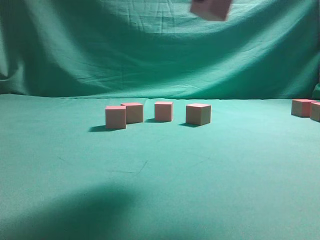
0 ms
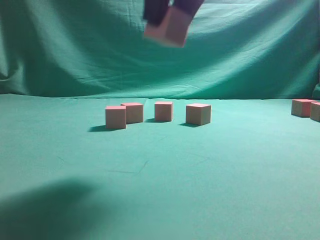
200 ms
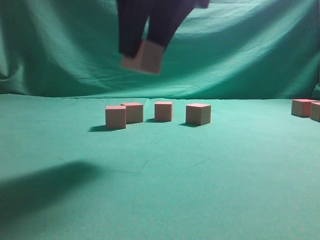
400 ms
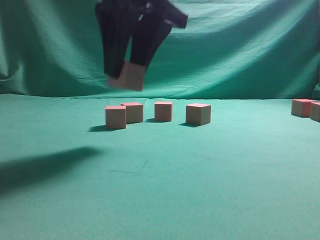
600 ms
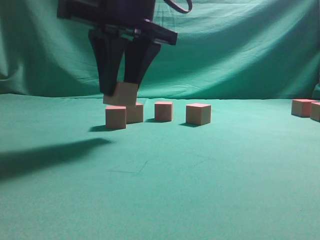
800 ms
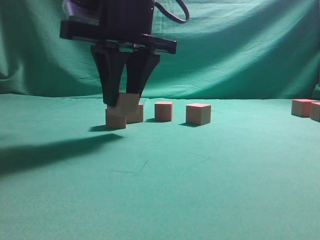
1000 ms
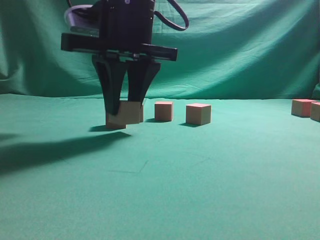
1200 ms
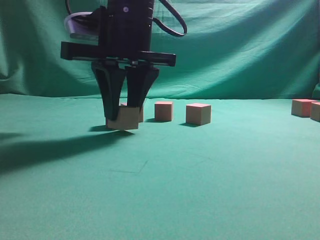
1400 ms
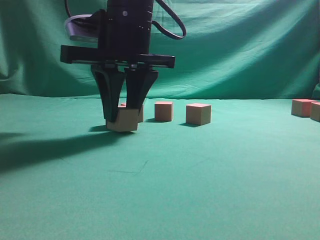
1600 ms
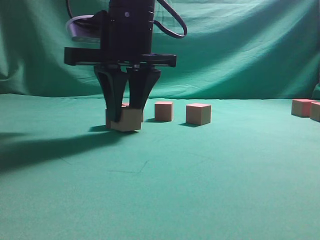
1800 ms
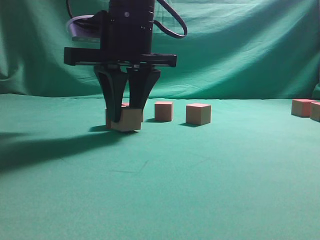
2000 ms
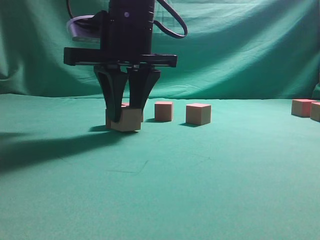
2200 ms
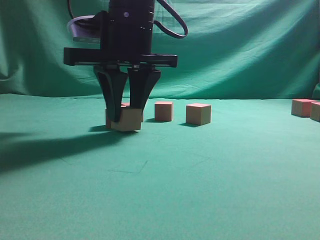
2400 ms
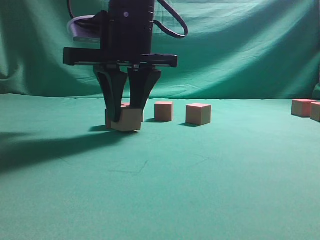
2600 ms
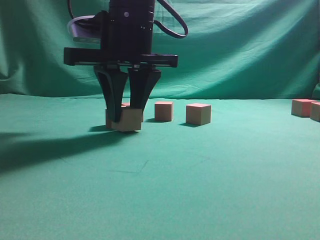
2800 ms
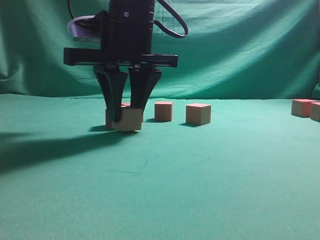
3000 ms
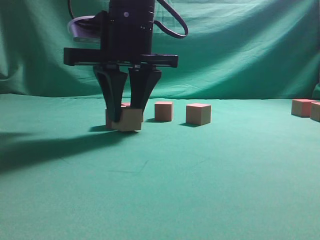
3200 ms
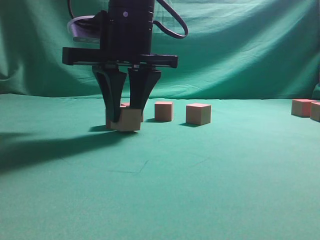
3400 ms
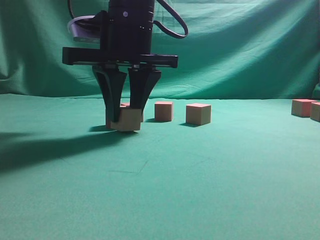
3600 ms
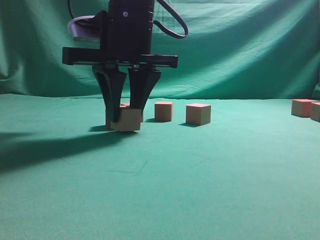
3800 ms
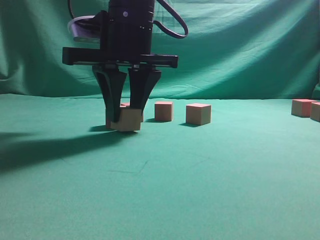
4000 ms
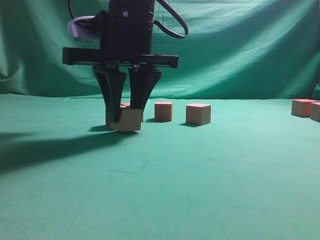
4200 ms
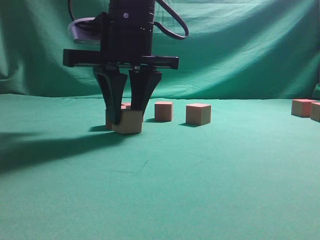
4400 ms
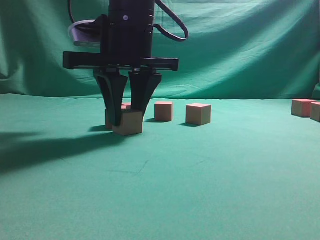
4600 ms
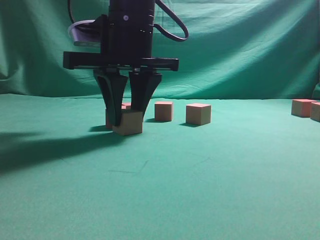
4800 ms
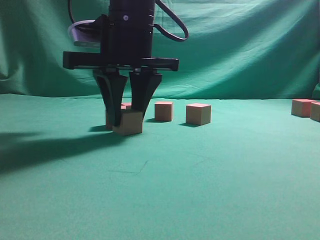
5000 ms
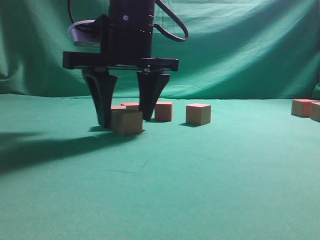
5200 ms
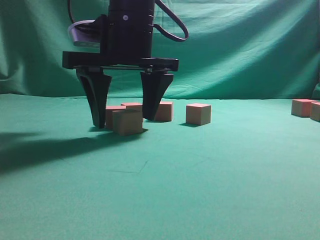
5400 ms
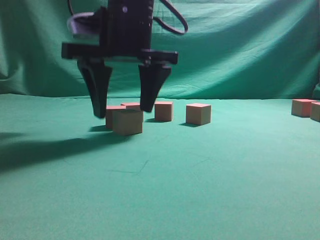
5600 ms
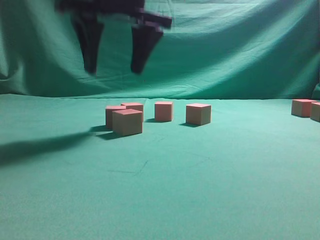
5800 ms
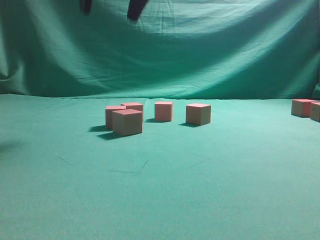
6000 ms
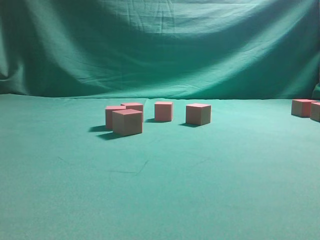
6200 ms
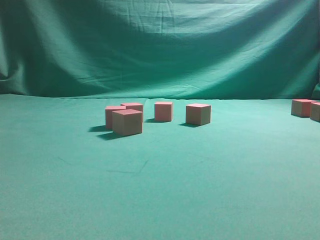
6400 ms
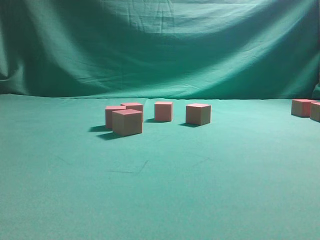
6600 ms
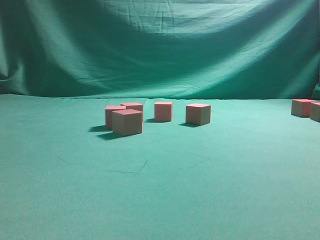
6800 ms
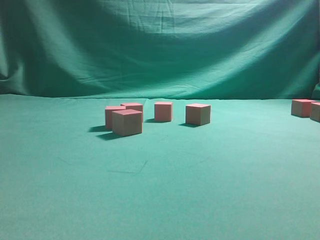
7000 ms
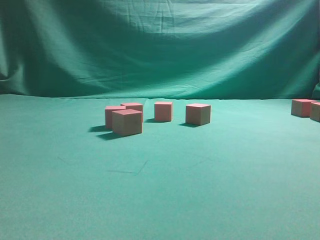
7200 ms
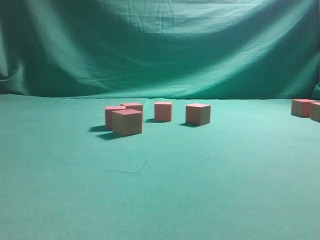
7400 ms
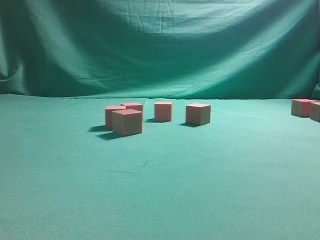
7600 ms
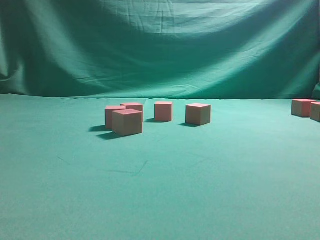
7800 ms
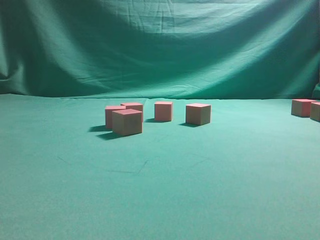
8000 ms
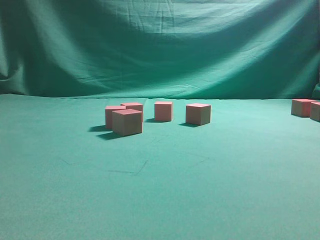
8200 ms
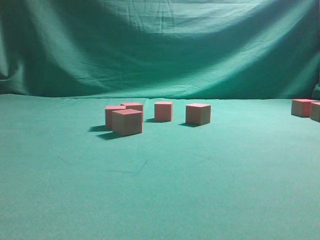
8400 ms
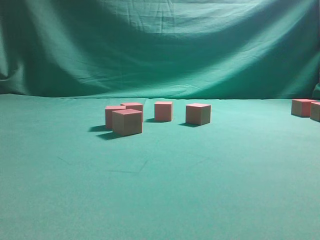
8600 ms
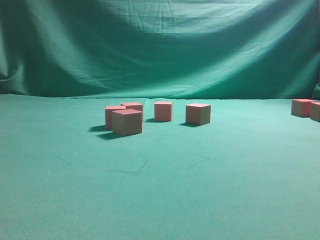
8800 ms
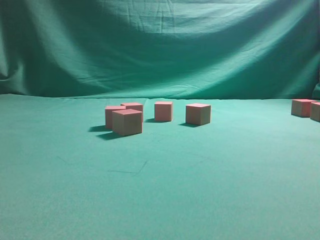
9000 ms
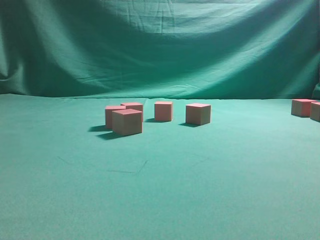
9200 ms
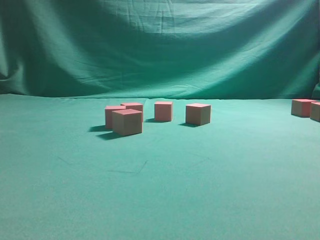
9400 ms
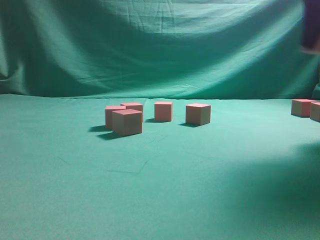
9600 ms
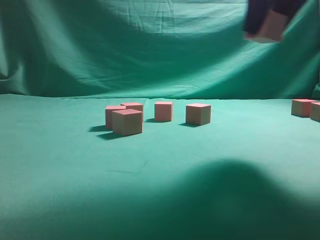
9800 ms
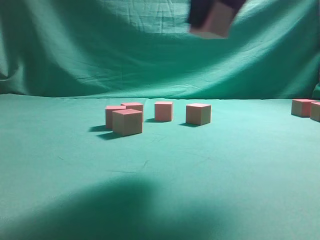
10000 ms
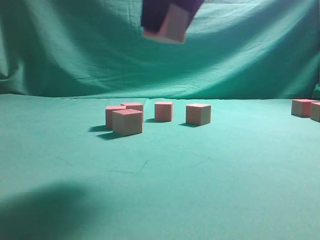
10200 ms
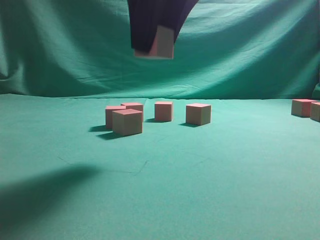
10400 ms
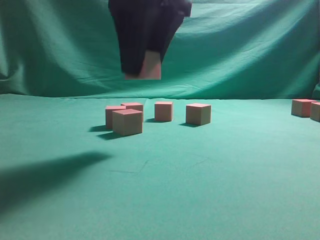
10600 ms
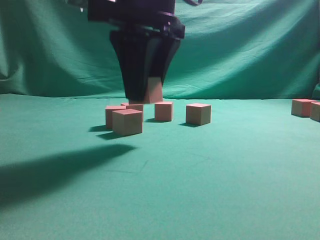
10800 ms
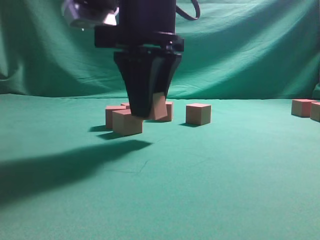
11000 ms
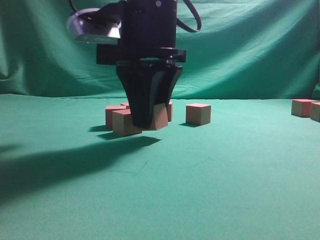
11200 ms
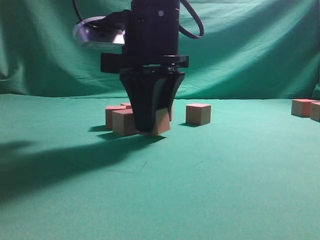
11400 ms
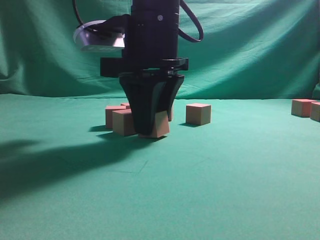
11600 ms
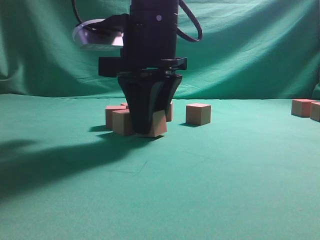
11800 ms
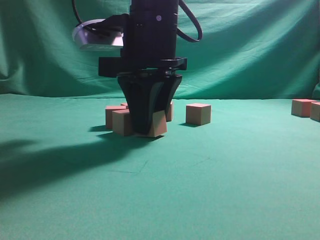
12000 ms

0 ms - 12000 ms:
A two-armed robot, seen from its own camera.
Task of the whole recording: pick up the multiple cubes in two columns one by one and place them in another position on the table.
Step, 0 ms - 5600 ms: Place the block at the correct position to assemble the letter S.
Step, 5800 ms - 8800 ms: Pick up the block on the table.
0 ms - 1600 ms: The right gripper is displaced to the left, downward and forward by roughly 20 cm.
1600 ms - 4400 ms: The two grippers keep their place.
4400 ms - 6000 ms: The right gripper heads upward, covering some 15 cm, and opens up.
9000 ms - 10400 ms: The right gripper moves to the left, some 35 cm.
10400 ms - 12000 ms: The right gripper shifts about 10 cm downward and forward.

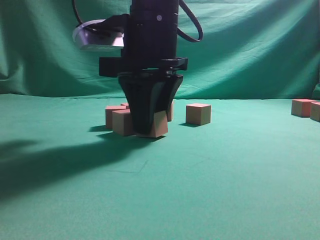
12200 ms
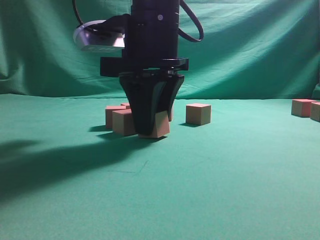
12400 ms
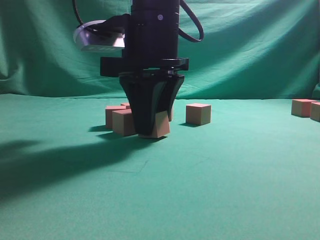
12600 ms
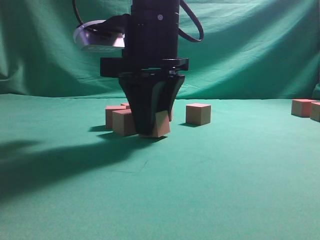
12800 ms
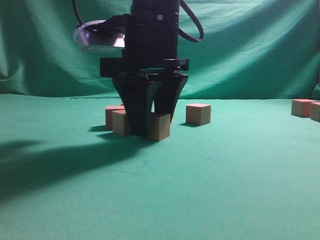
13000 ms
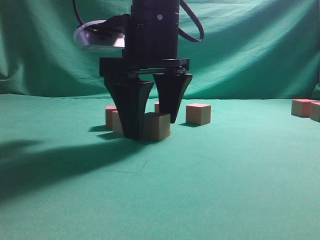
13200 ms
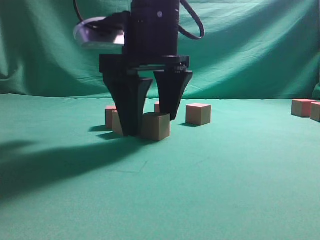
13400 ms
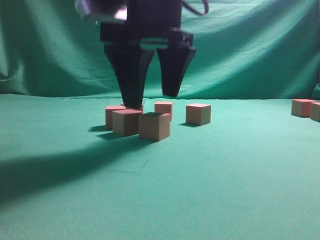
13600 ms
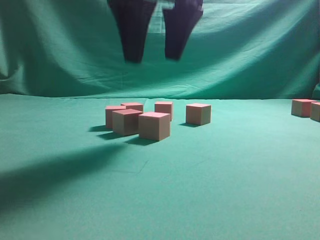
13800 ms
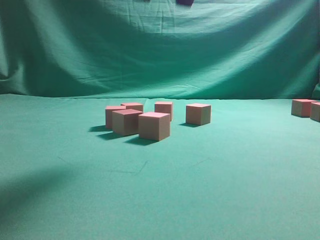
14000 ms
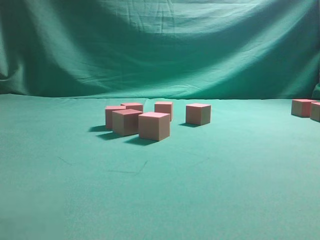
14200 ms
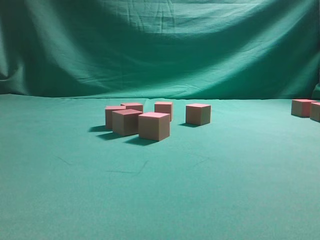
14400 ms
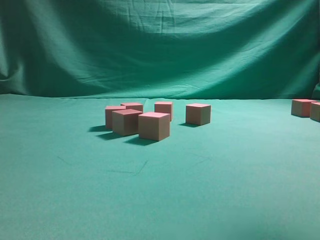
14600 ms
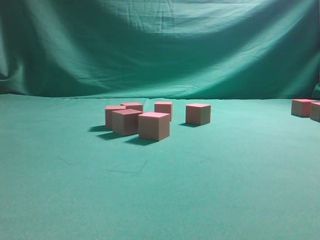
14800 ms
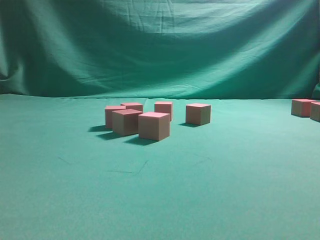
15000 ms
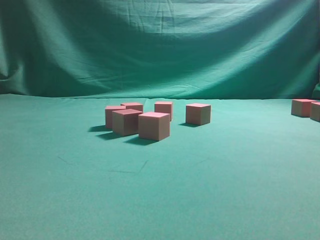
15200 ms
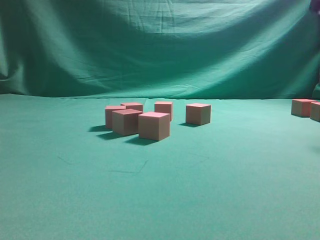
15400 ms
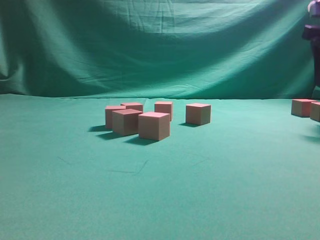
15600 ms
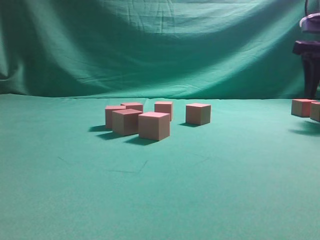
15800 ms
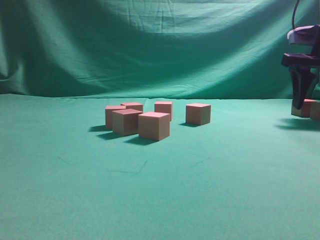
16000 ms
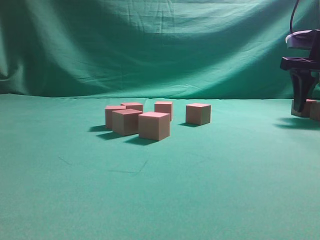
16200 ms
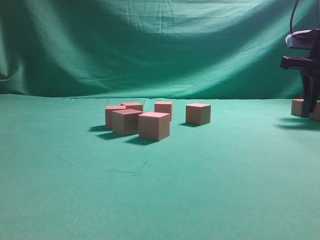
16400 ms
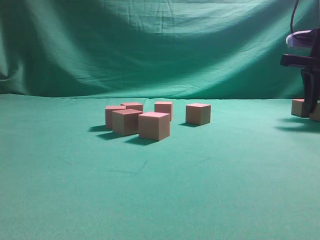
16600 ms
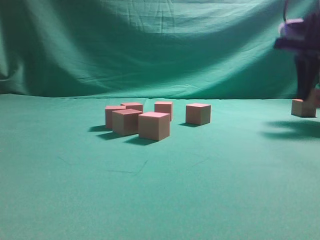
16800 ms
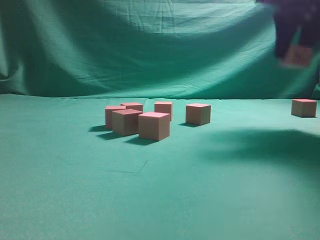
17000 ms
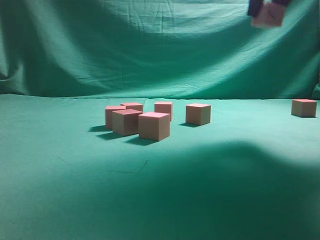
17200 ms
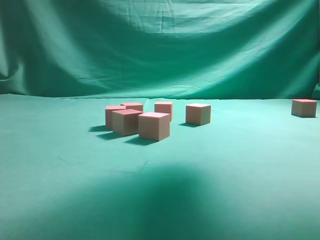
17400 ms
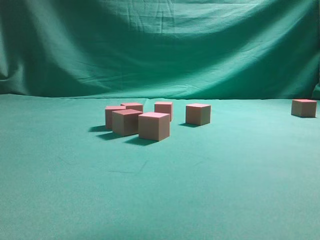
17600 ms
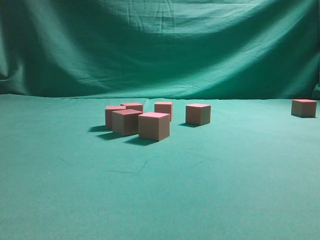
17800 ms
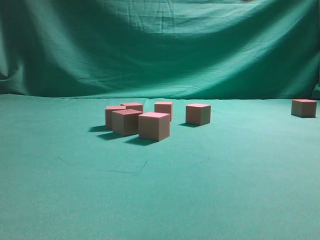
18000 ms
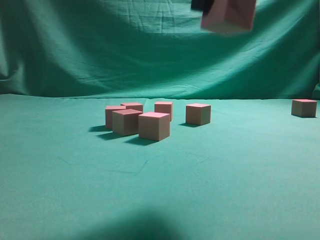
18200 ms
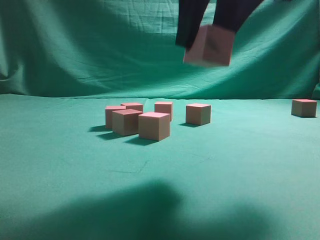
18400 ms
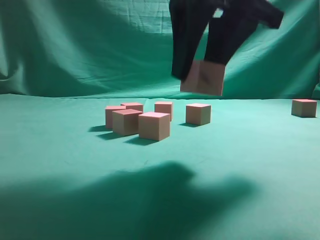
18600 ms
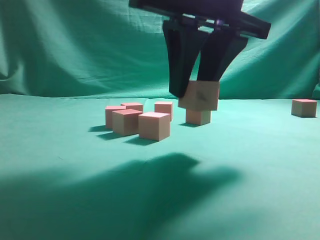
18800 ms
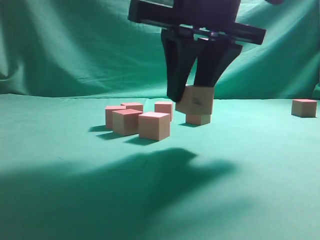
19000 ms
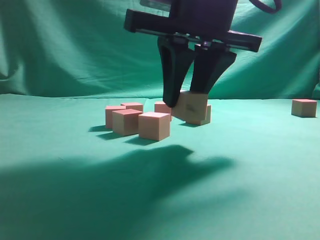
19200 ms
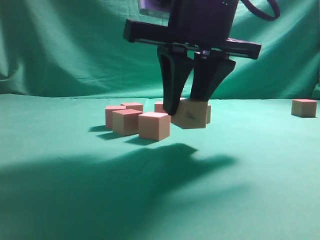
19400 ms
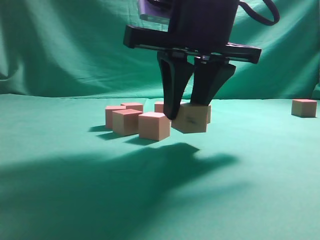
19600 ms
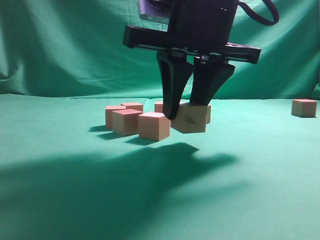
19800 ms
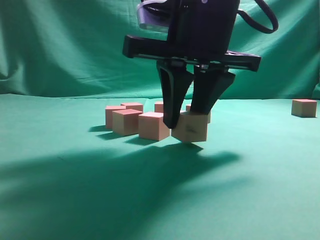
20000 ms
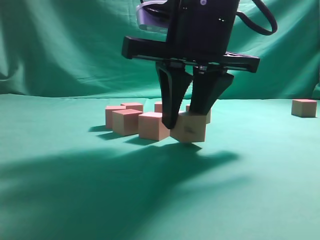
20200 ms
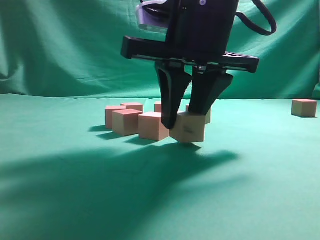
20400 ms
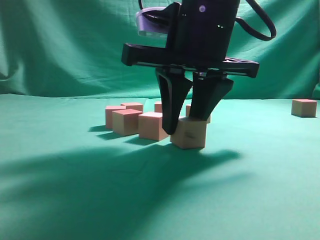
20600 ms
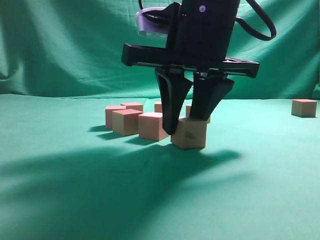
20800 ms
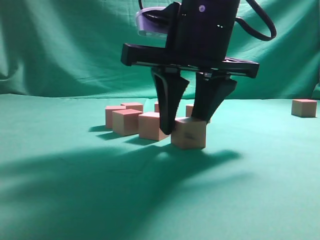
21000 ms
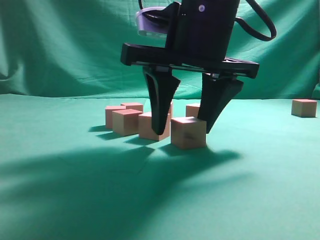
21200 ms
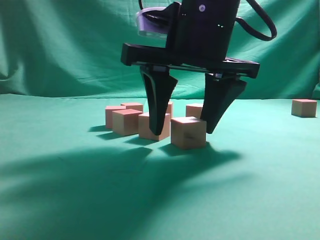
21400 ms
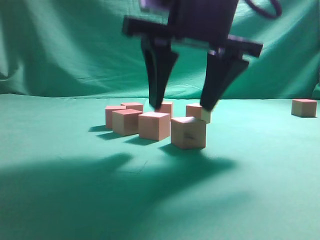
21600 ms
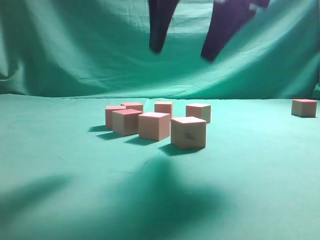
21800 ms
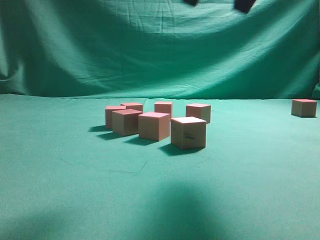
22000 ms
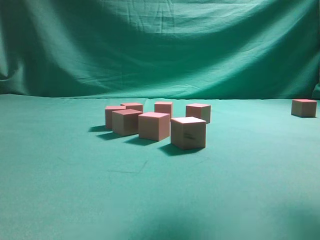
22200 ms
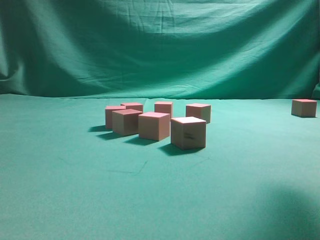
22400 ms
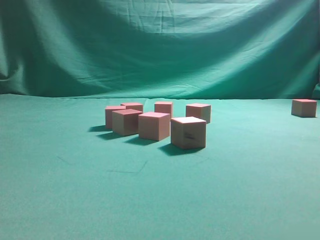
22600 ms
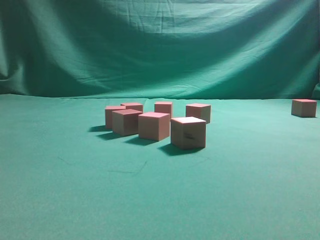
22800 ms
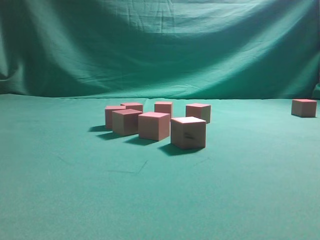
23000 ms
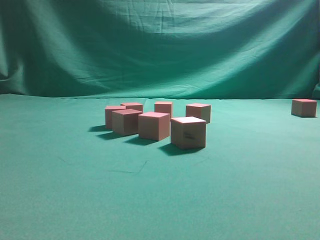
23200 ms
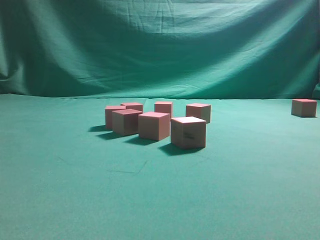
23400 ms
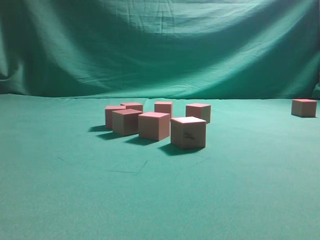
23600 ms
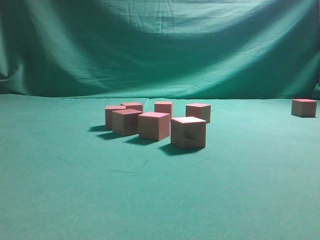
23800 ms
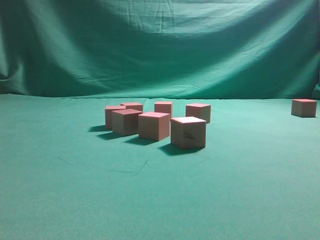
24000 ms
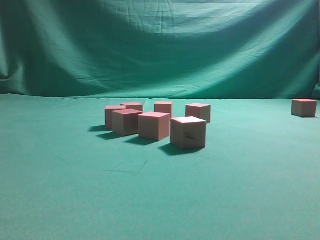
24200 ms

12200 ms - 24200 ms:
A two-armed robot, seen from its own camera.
Task of the whole recording: pick up the multiple cubes in two columns one by one and place them in another position on the table.
Step, 13800 ms - 16600 ms: Pick up the block on the table.
Step, 16800 ms - 21400 ms: Place the block at the correct position to assemble the letter S.
12200 ms - 13800 ms: The right gripper travels upward by about 10 cm, and opens its fingers.
13800 ms - 15200 ms: The right gripper shifts some 30 cm to the right.
15200 ms - 16600 ms: The right gripper goes about 15 cm downward and forward, and closes.
16600 ms - 18200 ms: The right gripper moves backward, to the left and upward, about 30 cm.
18200 ms - 19800 ms: The right gripper shifts roughly 10 cm downward and forward.
21200 ms - 22600 ms: The right gripper shifts some 25 cm to the right and upward.
